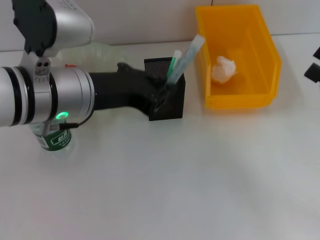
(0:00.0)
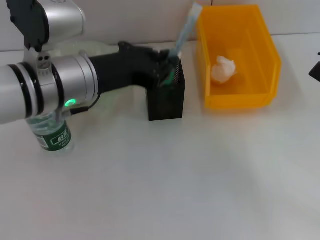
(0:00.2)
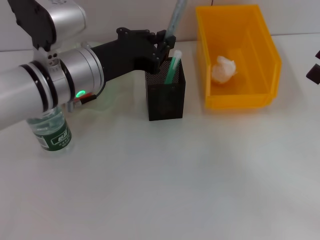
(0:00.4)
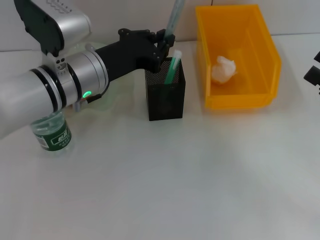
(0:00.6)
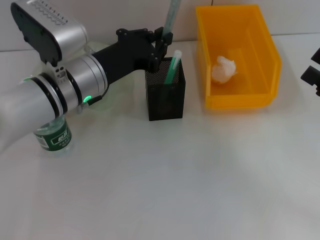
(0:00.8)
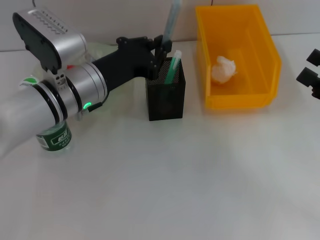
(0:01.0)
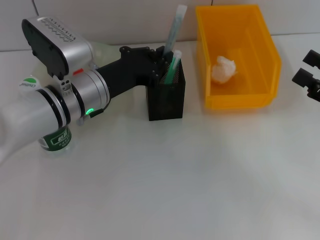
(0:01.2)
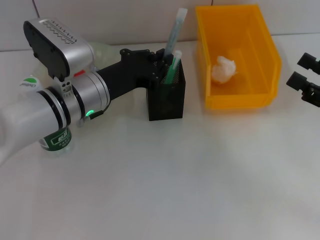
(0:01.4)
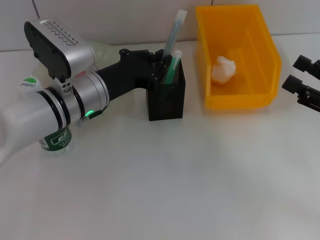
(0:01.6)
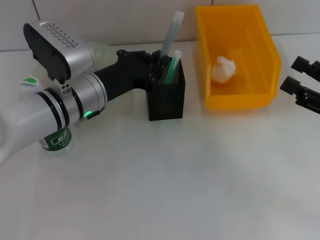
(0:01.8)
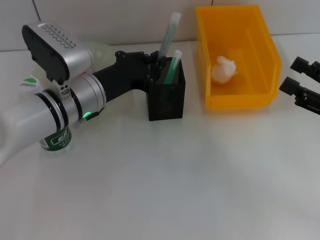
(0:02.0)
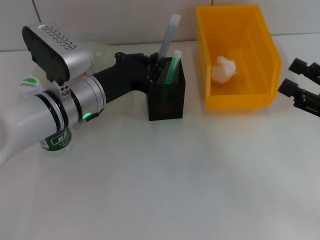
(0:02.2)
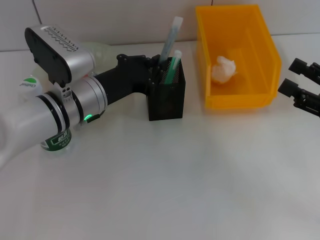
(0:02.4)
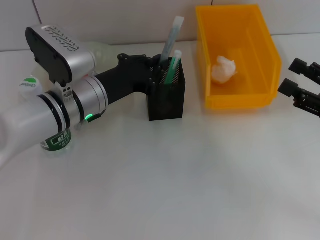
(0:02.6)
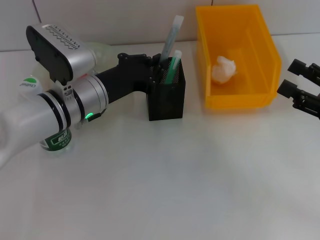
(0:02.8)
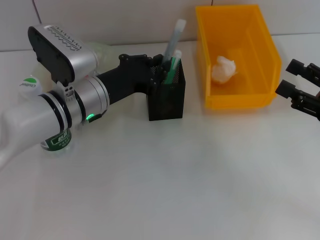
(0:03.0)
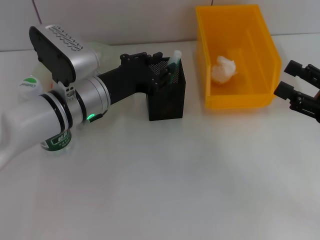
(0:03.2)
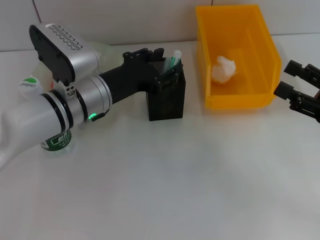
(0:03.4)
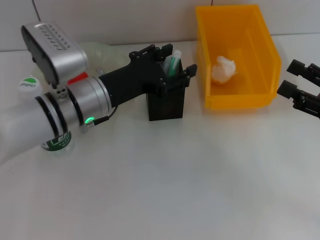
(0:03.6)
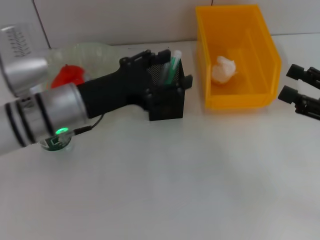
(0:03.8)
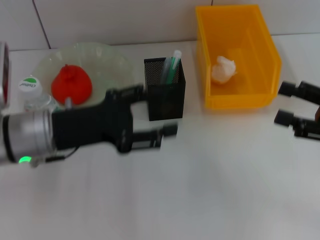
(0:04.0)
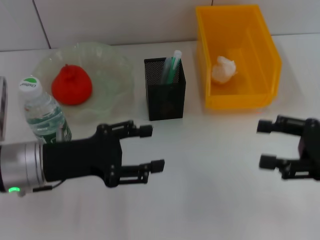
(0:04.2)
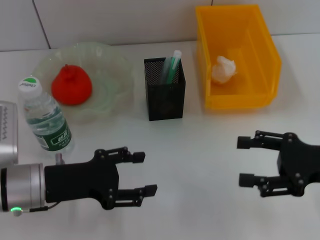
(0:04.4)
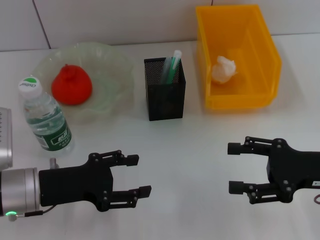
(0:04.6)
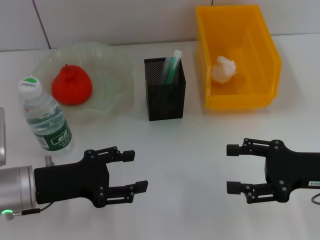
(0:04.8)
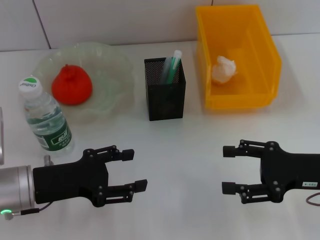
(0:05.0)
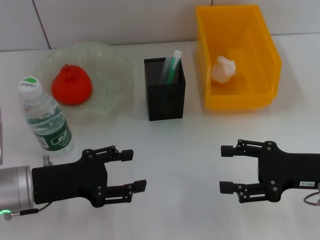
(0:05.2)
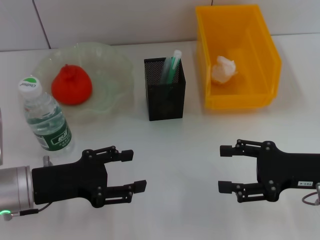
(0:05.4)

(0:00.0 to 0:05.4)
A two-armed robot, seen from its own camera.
Step, 0:00.0 - 0:03.2: Place the gray glue into the pen holder with the left hand.
0:00.0 - 0:01.4: The left gripper goes some 10 cm downward and forward.
0:01.4 - 0:02.8: The two grippers keep their place.
0:02.8 - 0:04.0: The left gripper shifts some 10 cm to the left and backward, and opens.
0:04.0 - 0:05.4: The right gripper heads to the left, covering some 5 cm; the left gripper travels downward by roughly 5 cm.
